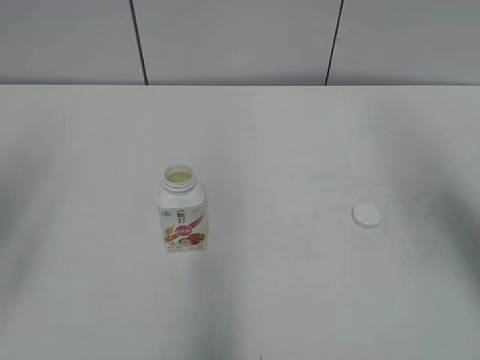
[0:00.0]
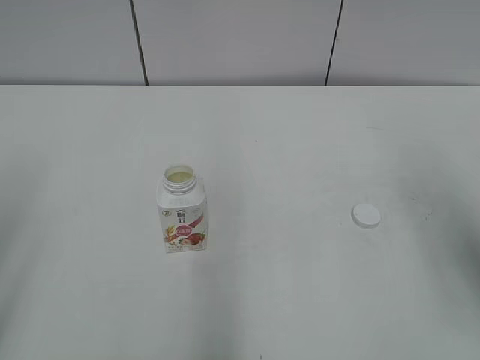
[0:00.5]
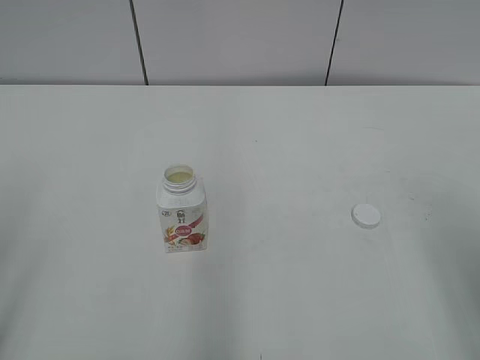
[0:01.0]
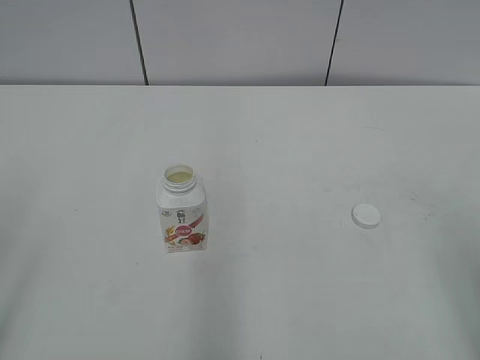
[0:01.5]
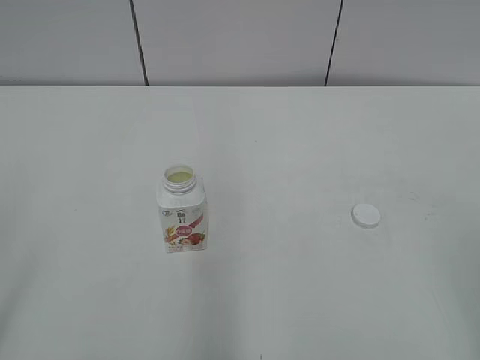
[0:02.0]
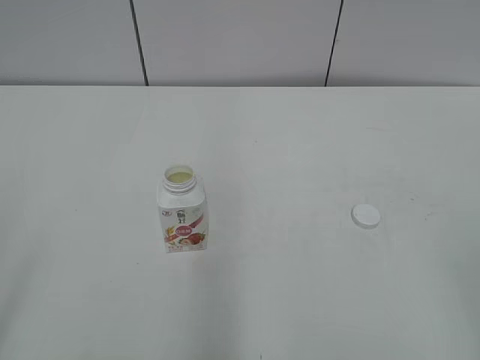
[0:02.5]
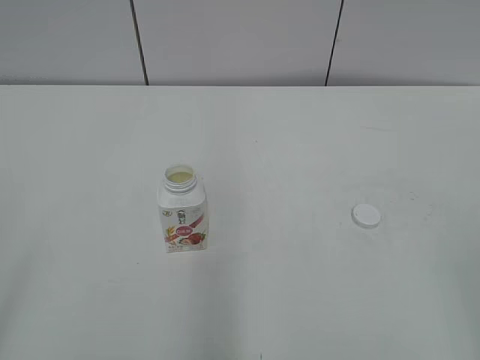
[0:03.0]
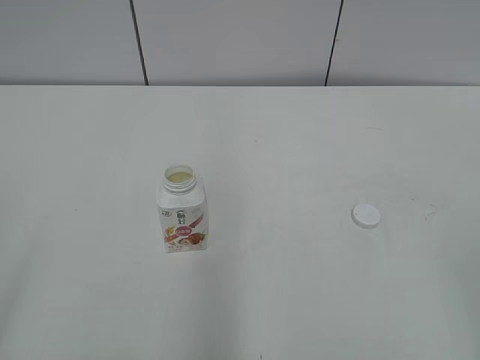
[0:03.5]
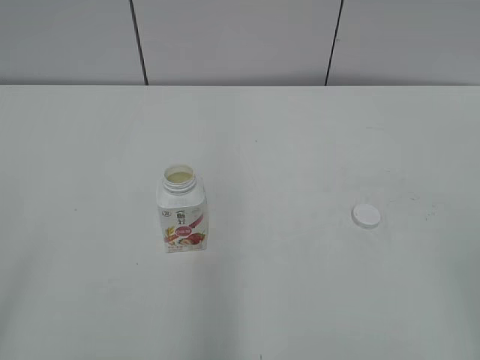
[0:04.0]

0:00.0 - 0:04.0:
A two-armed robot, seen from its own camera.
0:00.0 - 0:02.0: The right gripper heads backward, covering some 20 cm.

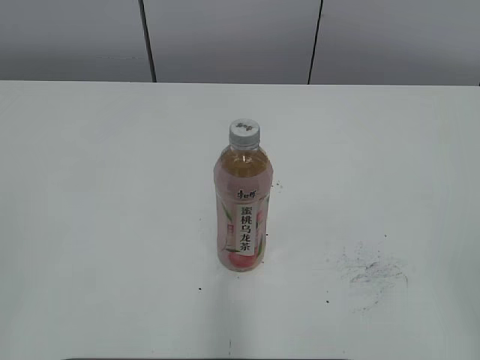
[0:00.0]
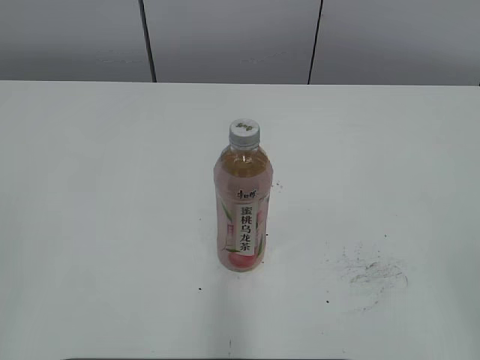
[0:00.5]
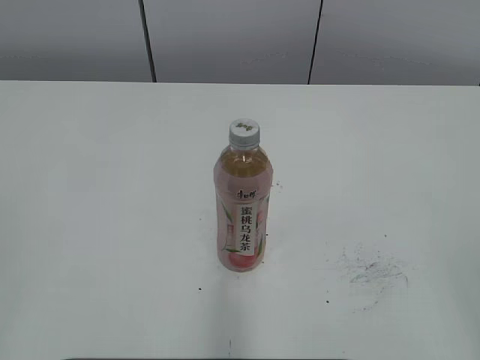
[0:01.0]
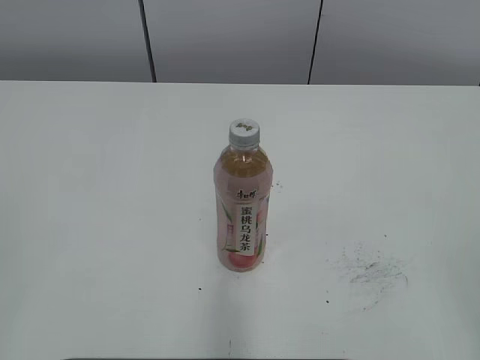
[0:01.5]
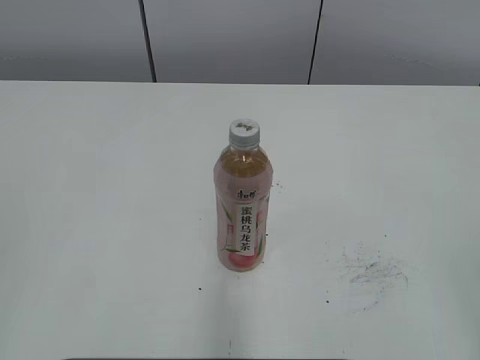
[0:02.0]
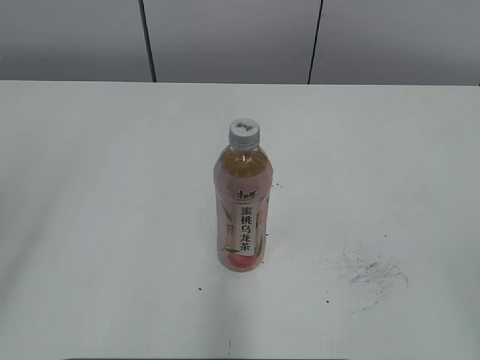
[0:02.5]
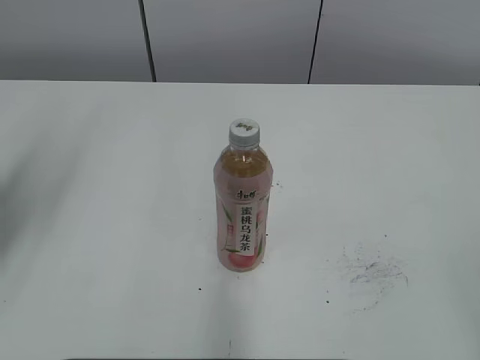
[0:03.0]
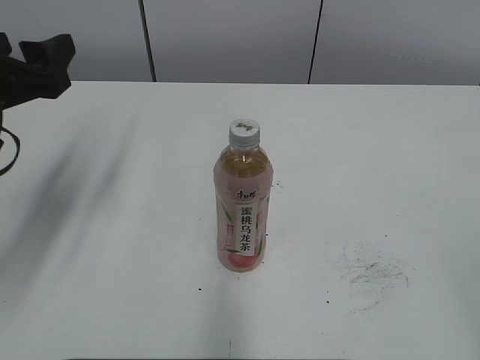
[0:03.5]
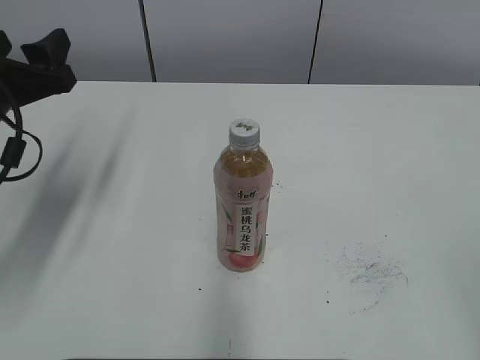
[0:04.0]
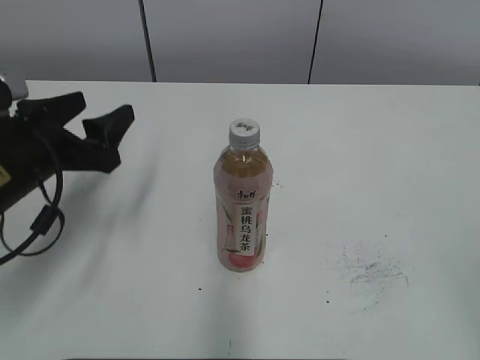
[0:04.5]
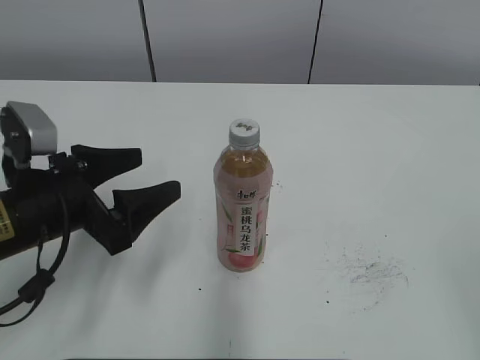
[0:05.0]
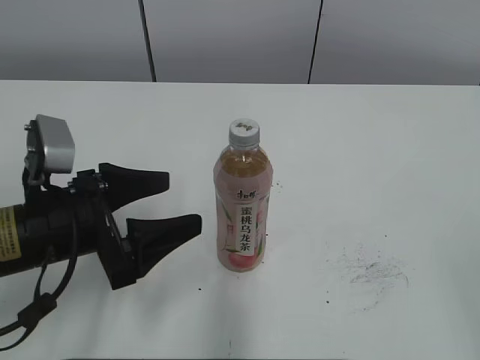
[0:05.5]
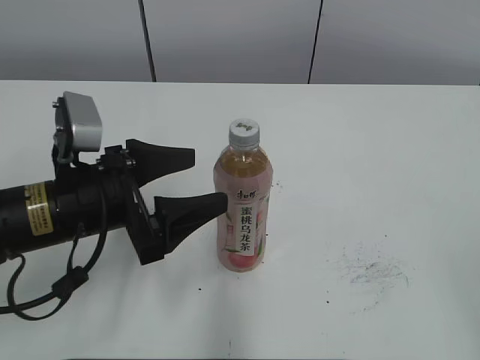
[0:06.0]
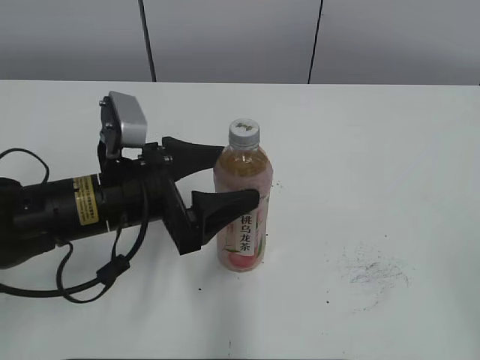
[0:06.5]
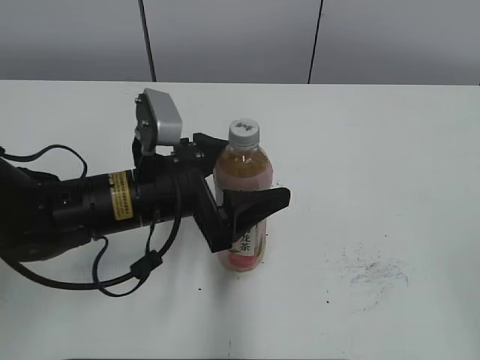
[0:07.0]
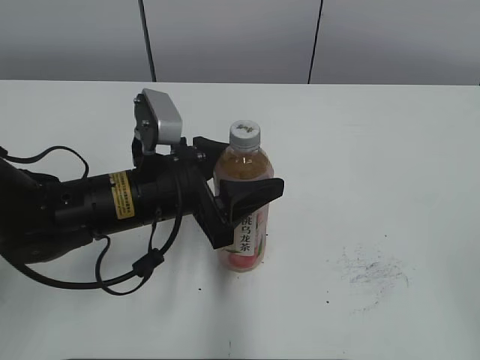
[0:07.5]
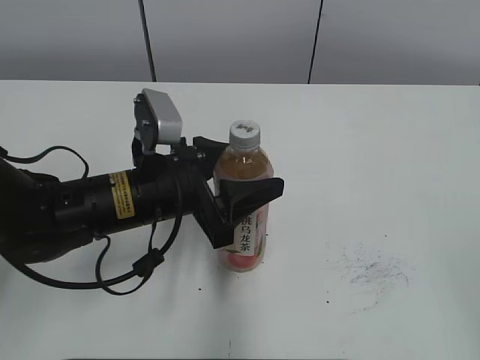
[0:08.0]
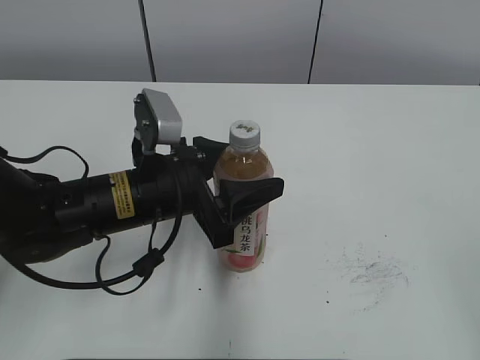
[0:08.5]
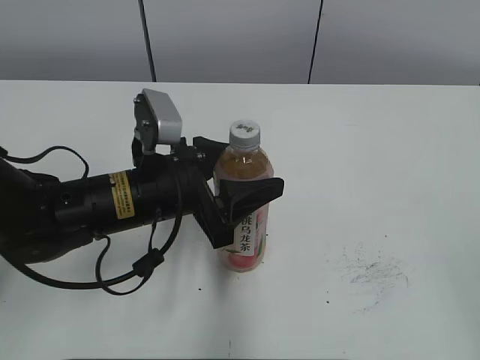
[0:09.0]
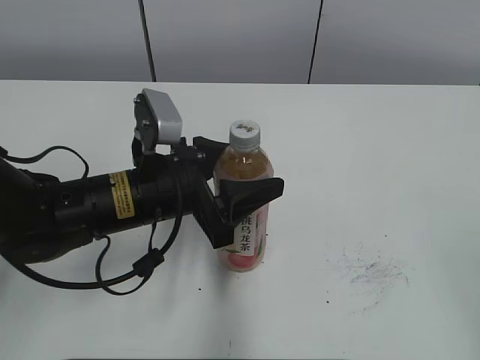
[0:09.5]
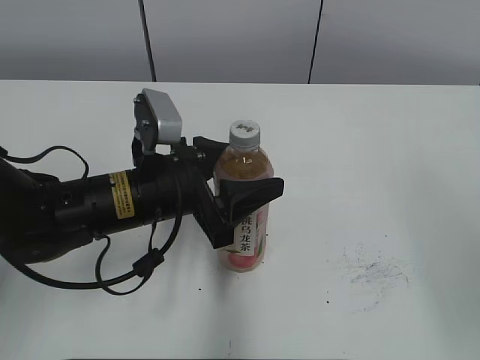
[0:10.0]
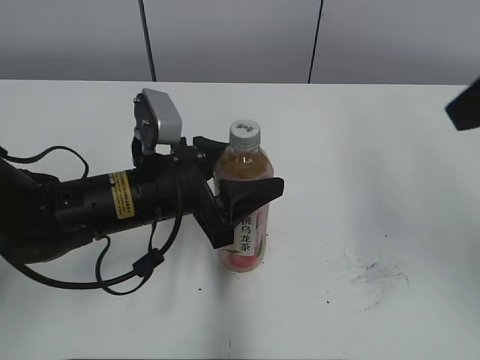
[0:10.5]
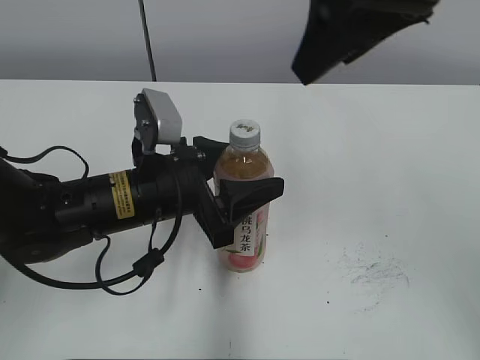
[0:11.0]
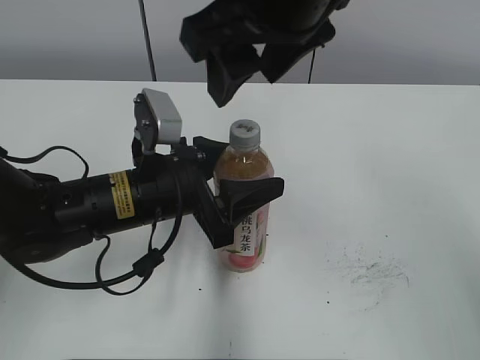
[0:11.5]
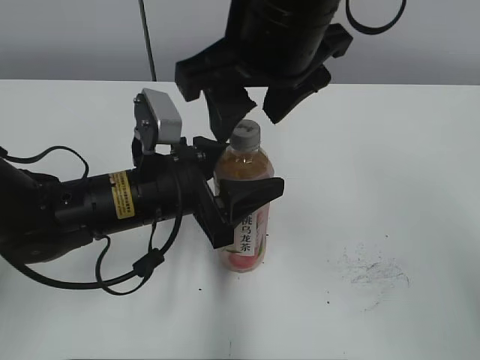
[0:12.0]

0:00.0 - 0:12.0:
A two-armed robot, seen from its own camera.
0:02.0 - 0:04.0: The left gripper heads forward, covering some 30 cm, and opens.
0:04.0 - 0:06.0: The left gripper heads to the right, downward and backward, covering roughly 10 cm.
0:06.0 - 0:08.0: The left gripper heads to the right, covering some 5 cm, and closes its fingers.
0:10.0 - 0:12.0: The right gripper shifts roughly 30 cm to the left and forward.

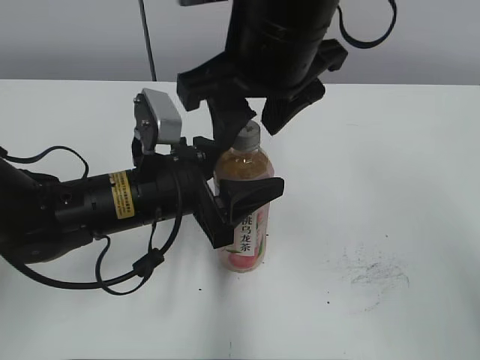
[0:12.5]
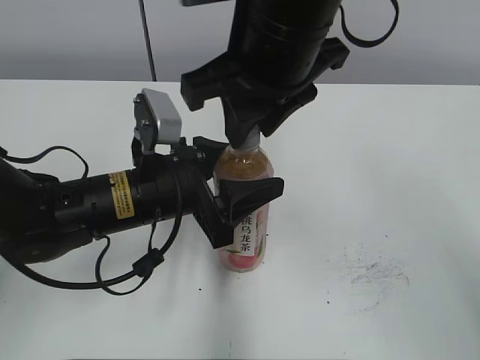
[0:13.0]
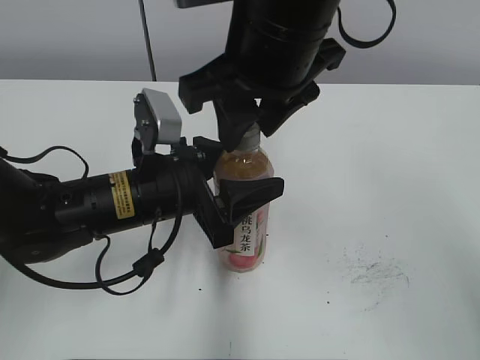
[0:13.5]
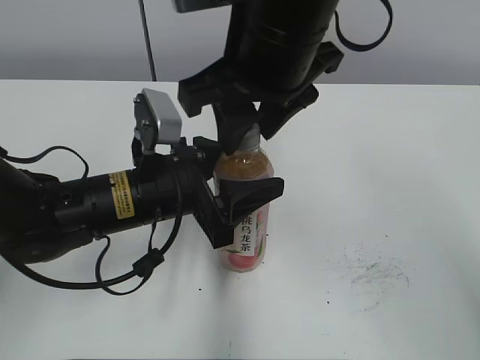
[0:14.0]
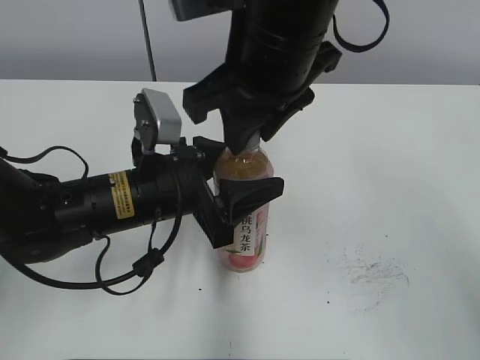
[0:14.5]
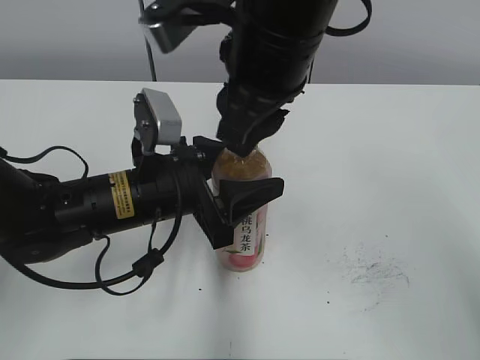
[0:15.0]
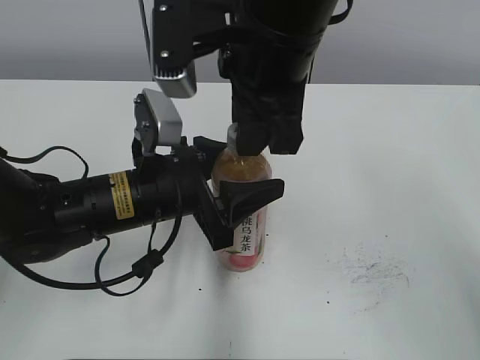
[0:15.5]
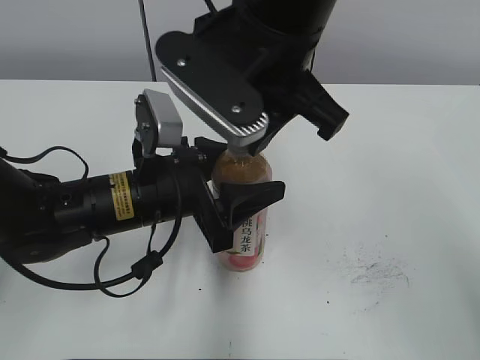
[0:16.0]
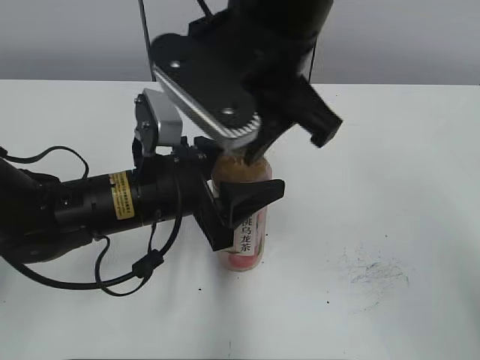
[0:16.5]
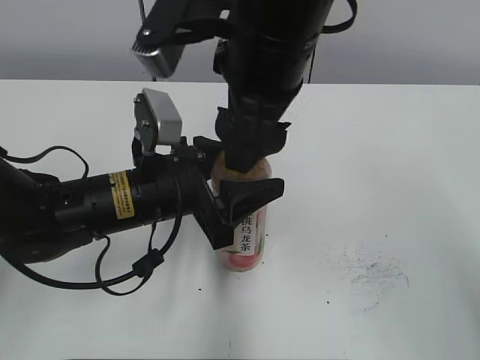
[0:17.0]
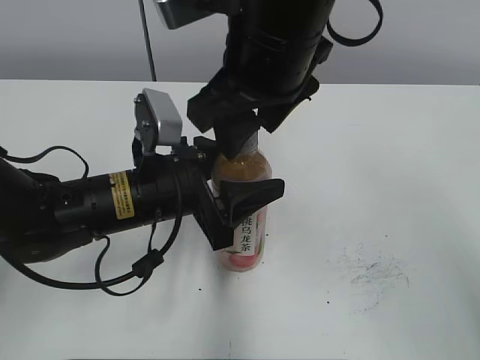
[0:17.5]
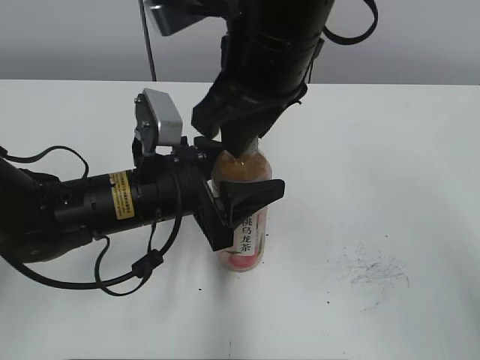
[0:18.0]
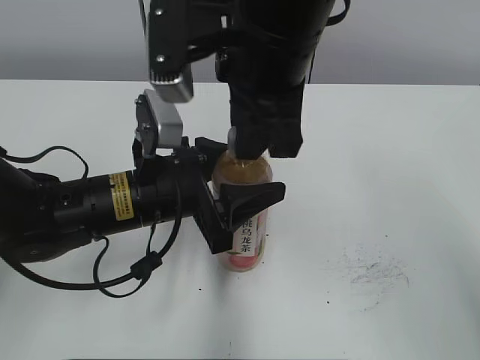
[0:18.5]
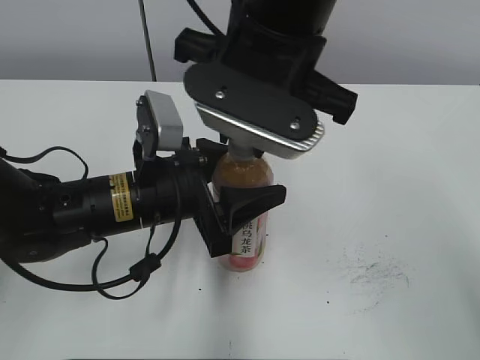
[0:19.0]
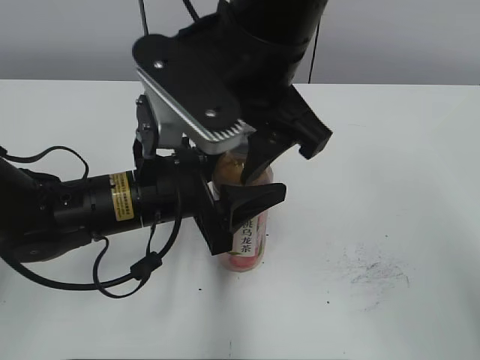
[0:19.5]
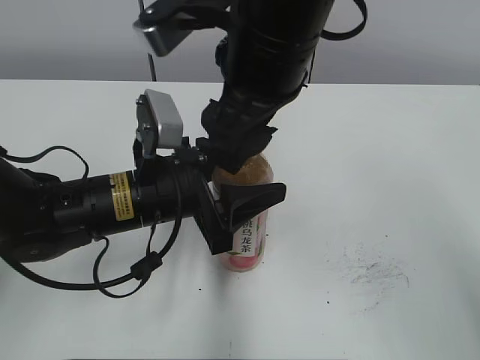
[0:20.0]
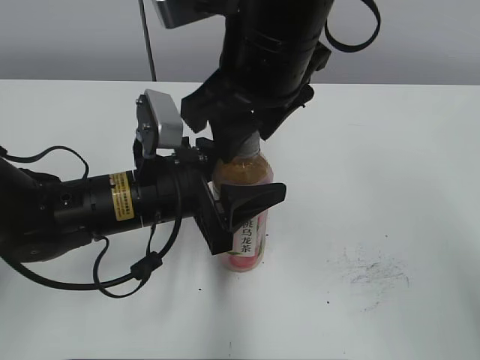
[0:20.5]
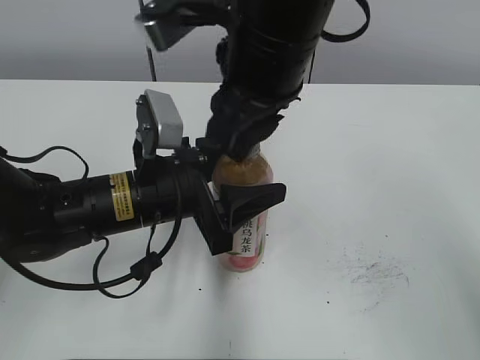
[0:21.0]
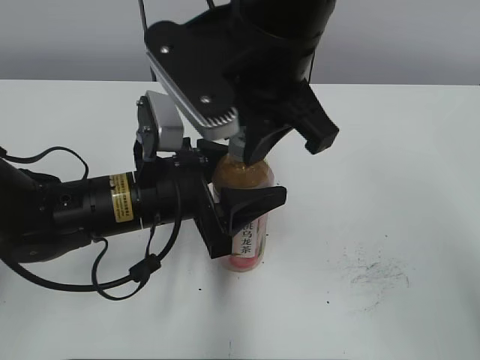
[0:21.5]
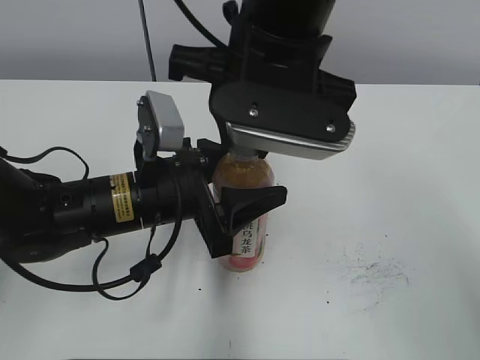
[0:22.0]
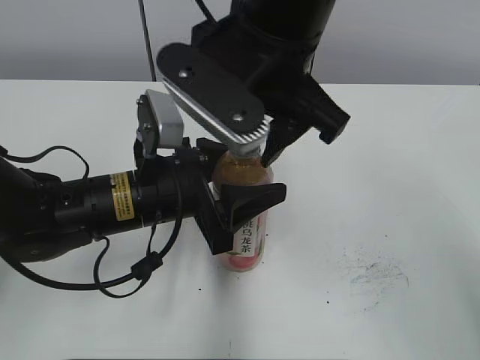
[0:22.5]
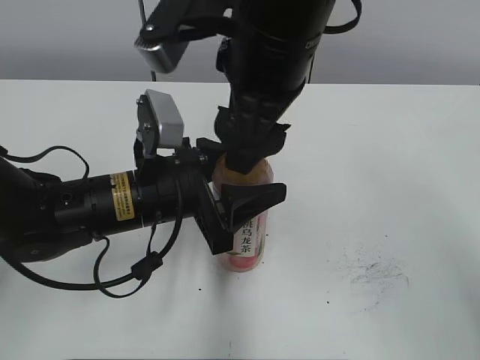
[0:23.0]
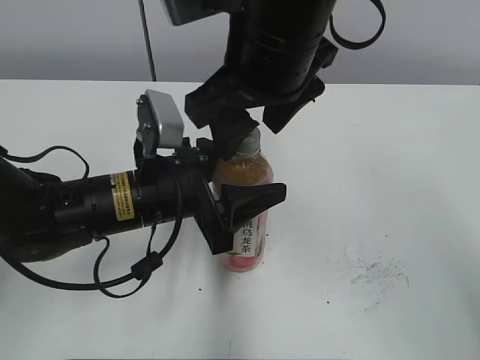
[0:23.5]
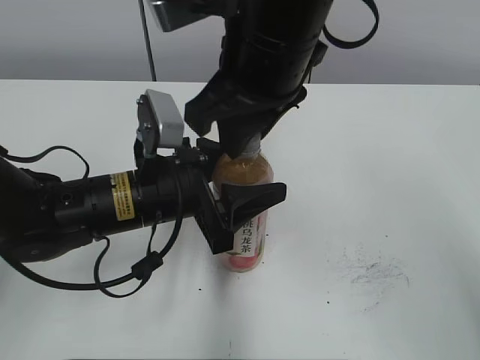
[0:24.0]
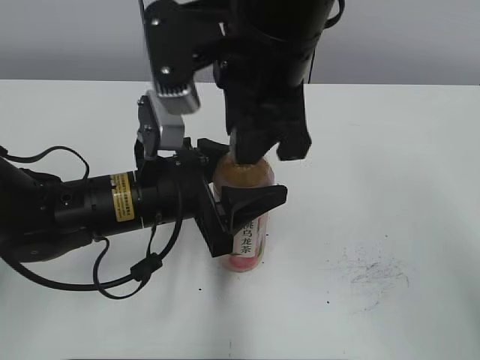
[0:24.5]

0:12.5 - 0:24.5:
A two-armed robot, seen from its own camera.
0:12.5 - 0:14.5: The right gripper closes its fingers.
0:16.5 - 0:18.5: The right gripper opens, then closes again.
0:18.5 - 0:20.5: The right gripper opens up.
0:20.5 - 0:22.5: The right gripper closes, then reopens.
0:22.5 - 0:24.5: The right gripper closes up.
